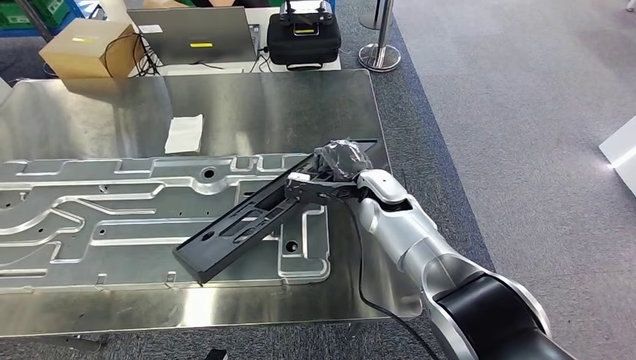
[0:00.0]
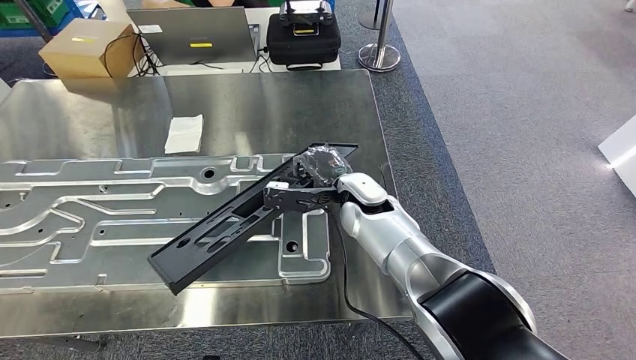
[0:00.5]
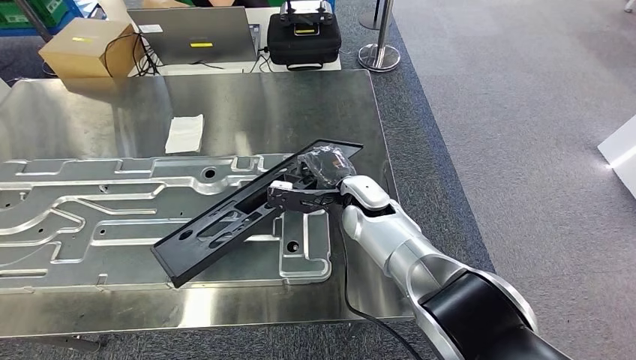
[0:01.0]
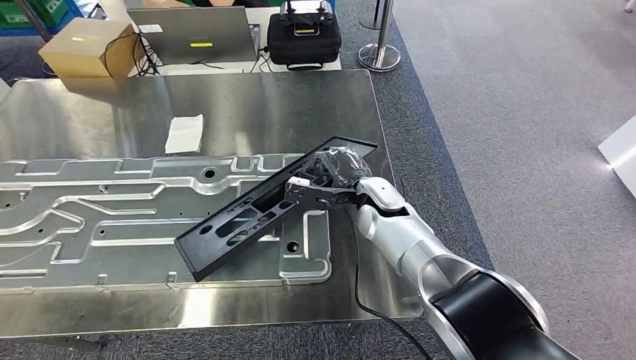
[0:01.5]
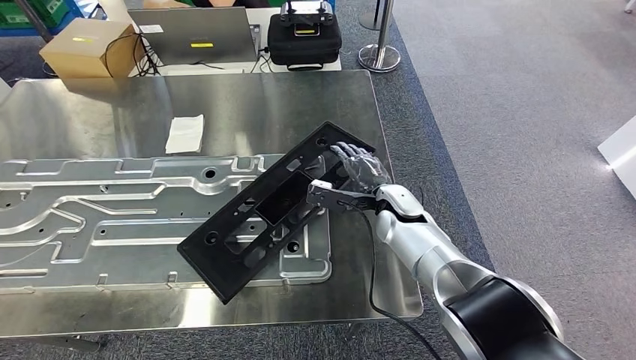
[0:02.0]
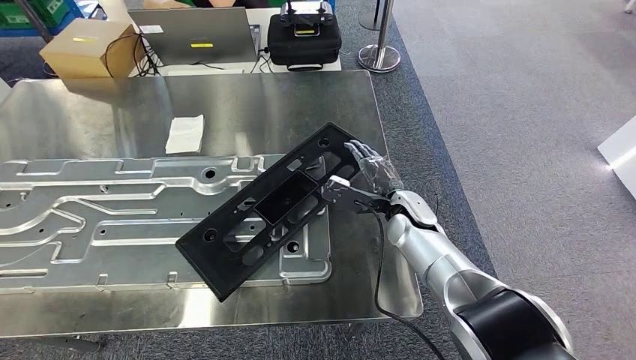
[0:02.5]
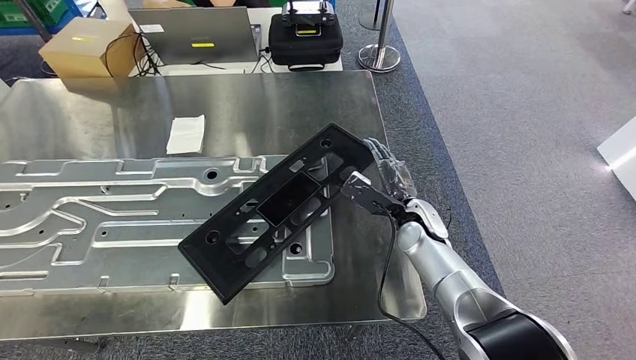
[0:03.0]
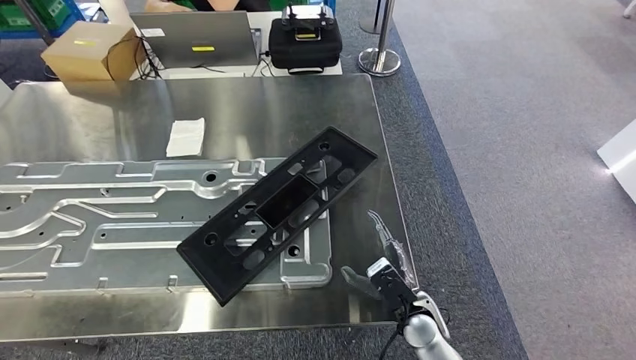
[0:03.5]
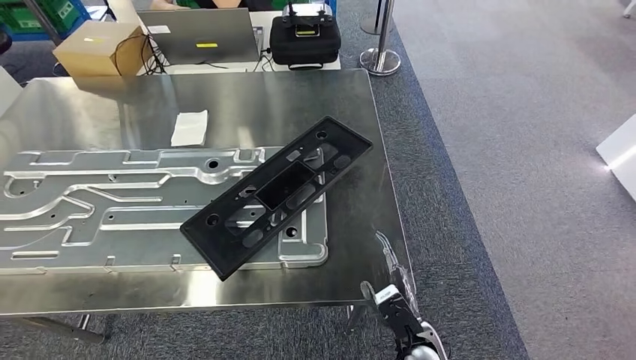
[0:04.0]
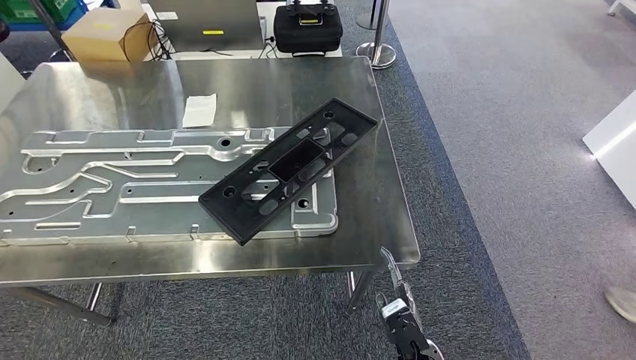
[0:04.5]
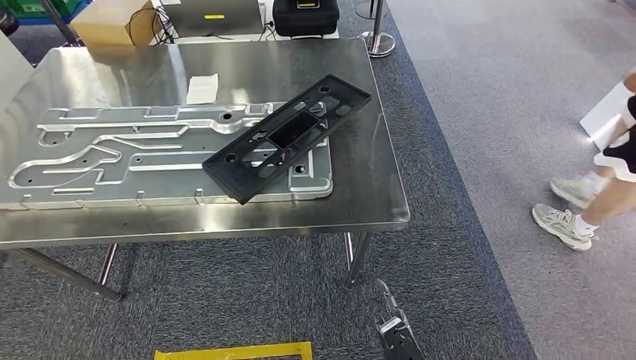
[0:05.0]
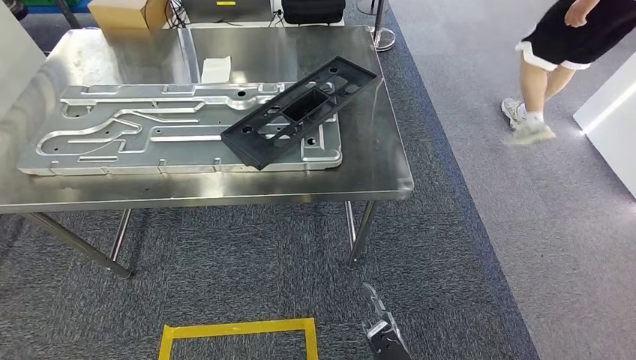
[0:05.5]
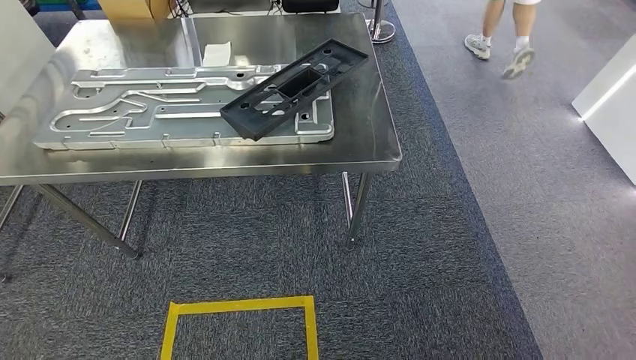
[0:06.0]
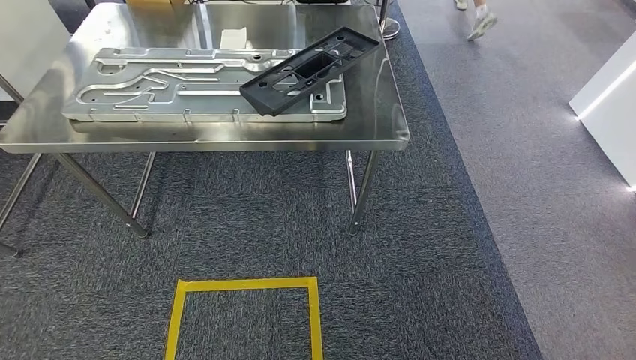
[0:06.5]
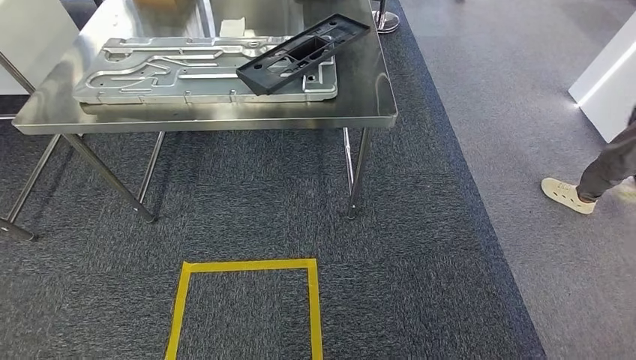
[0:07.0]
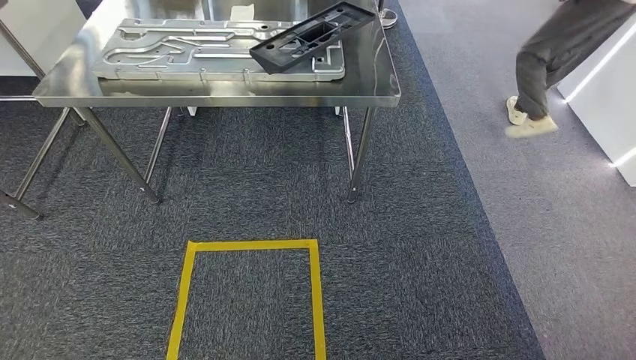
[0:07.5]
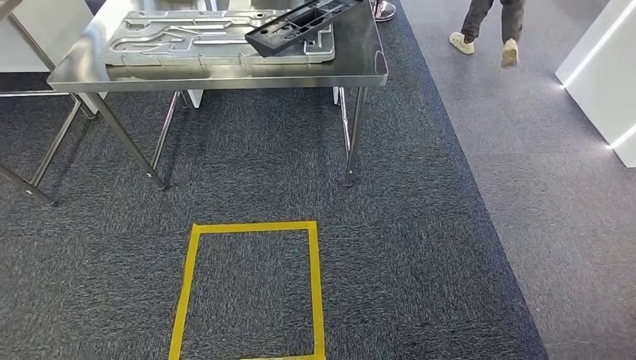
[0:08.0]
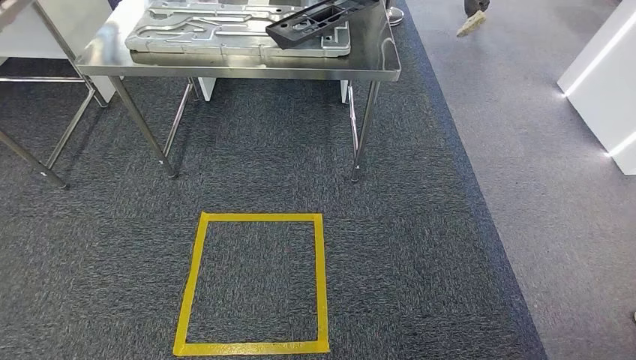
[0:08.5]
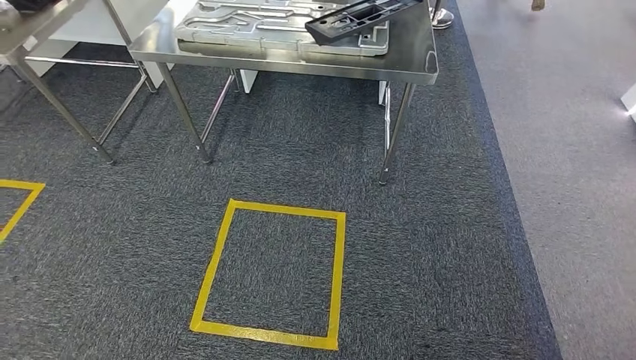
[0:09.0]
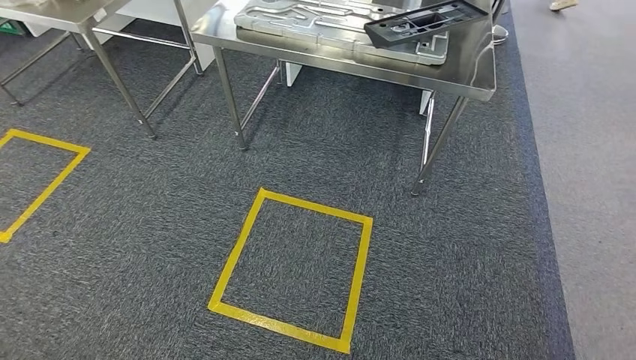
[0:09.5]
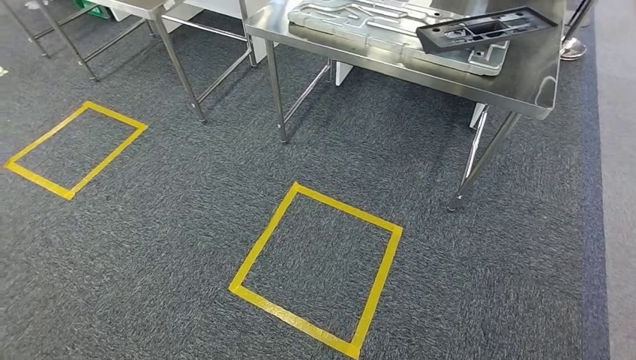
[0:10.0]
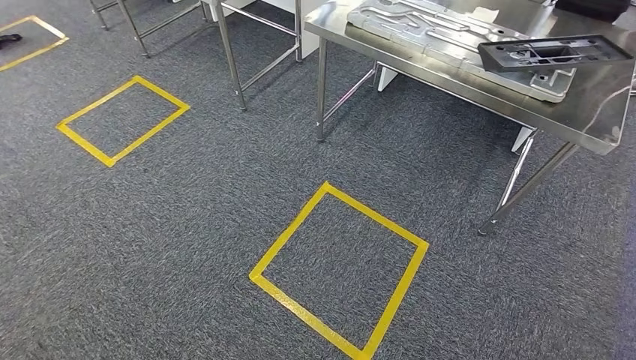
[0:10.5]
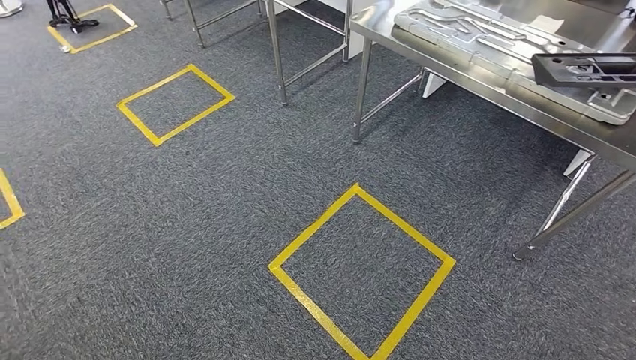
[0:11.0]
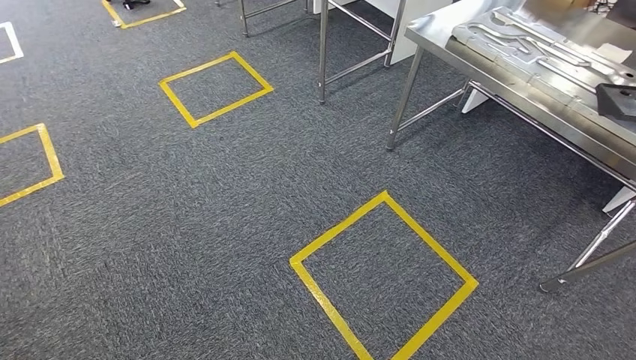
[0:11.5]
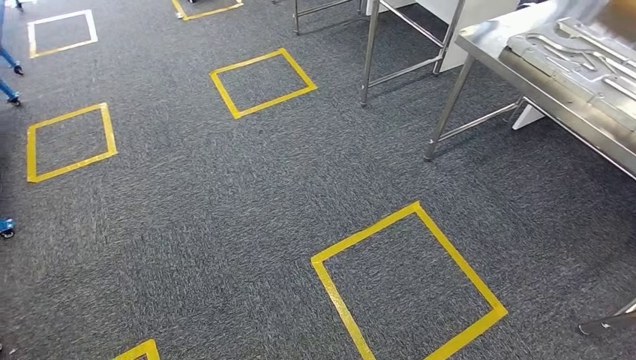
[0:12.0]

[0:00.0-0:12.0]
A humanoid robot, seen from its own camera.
Step, 0:00.0 to 0:06.0: Insert the large material into the corresponding slot on the workbench.
0:00.0 to 0:02.0: The right hand moves some 5 cm.

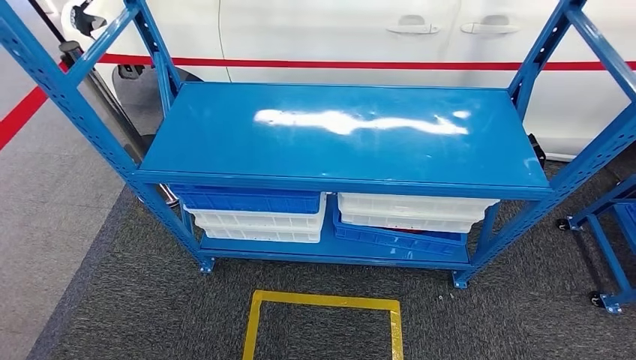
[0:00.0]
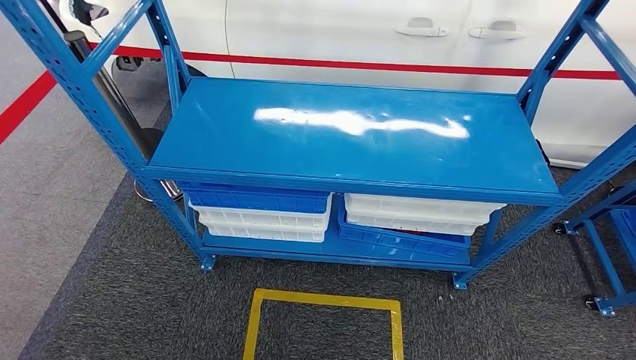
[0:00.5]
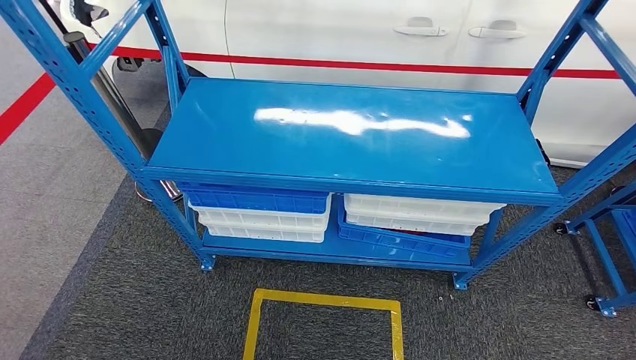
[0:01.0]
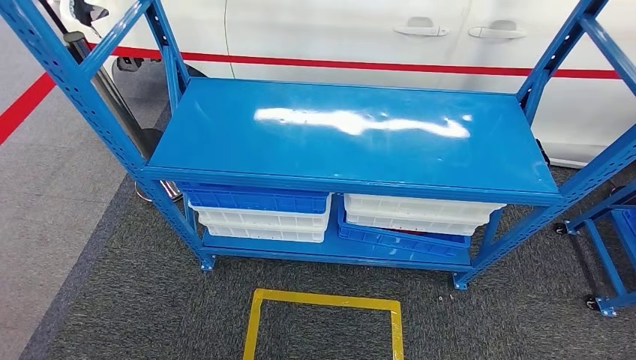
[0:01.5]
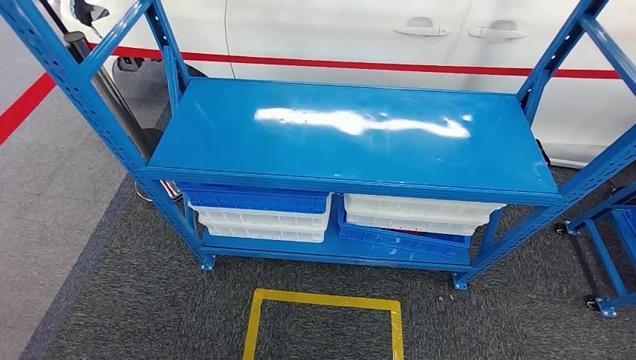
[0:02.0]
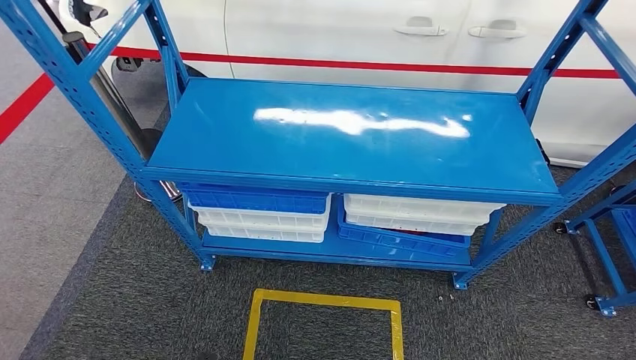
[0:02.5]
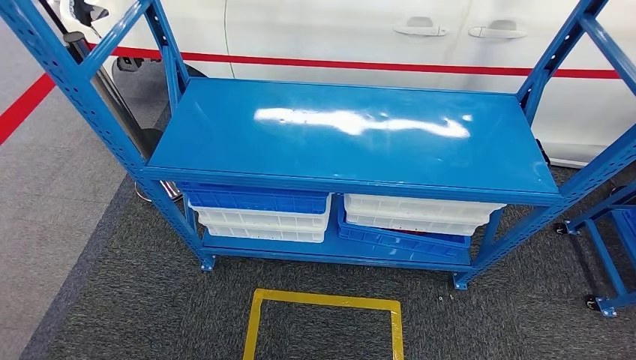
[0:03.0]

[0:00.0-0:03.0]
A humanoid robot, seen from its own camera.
Step, 0:00.0 to 0:03.0: Move to the initial position of the shelf.
